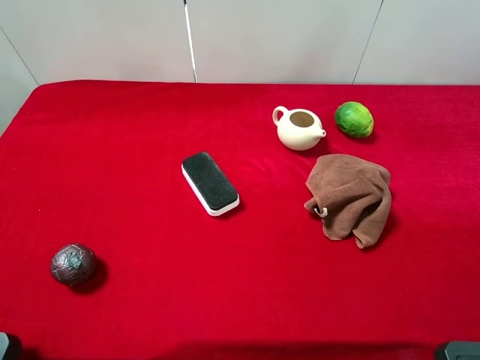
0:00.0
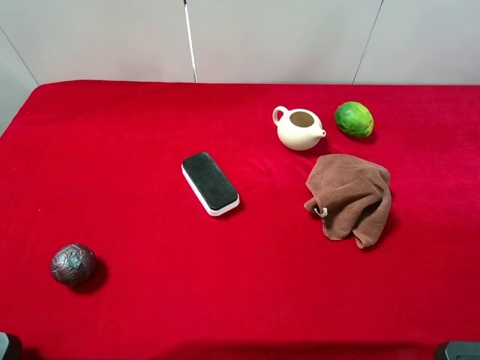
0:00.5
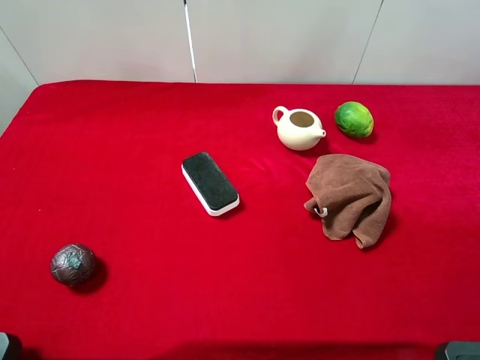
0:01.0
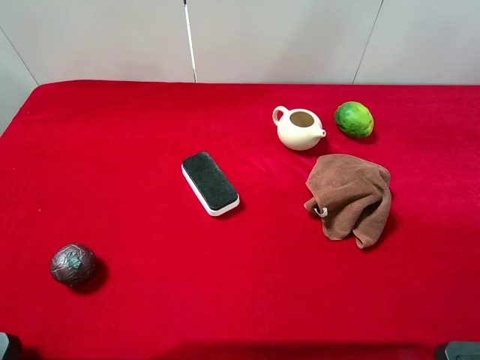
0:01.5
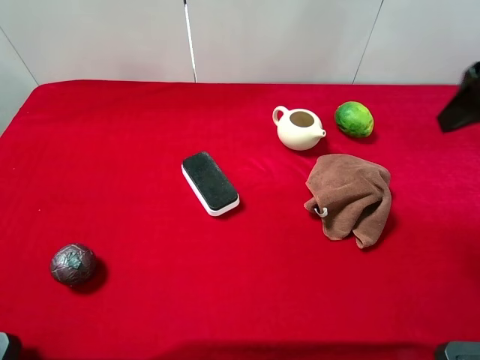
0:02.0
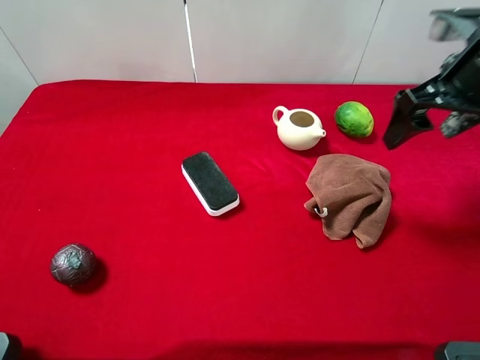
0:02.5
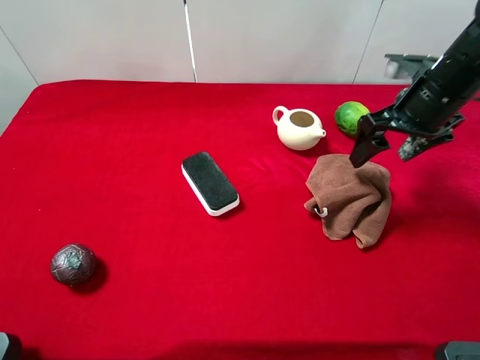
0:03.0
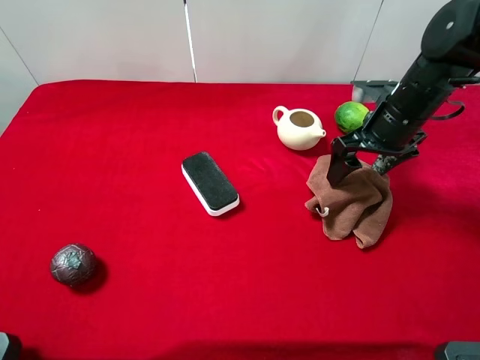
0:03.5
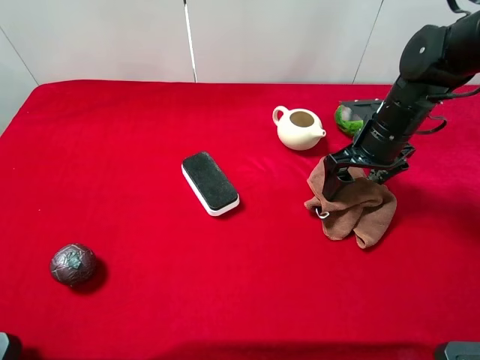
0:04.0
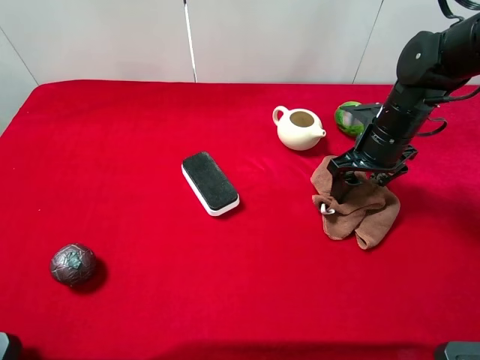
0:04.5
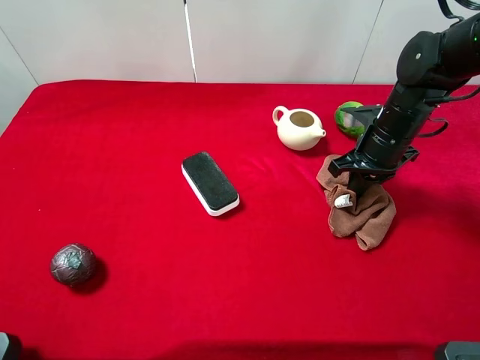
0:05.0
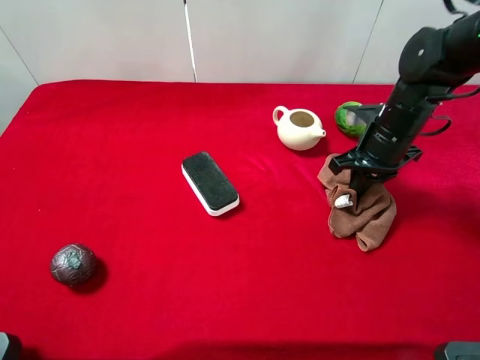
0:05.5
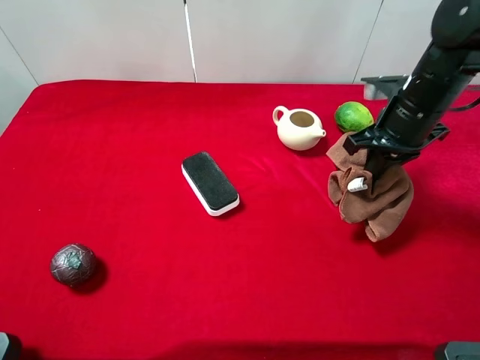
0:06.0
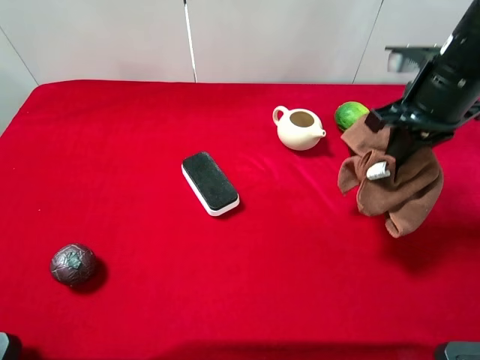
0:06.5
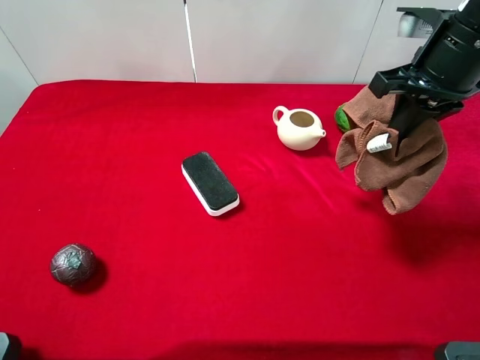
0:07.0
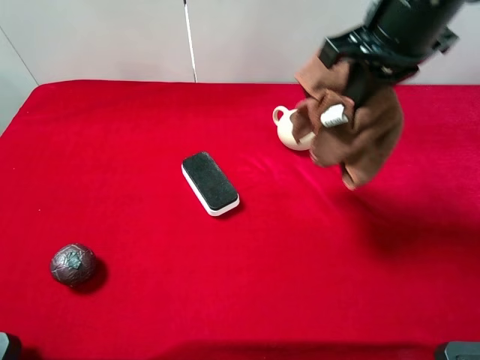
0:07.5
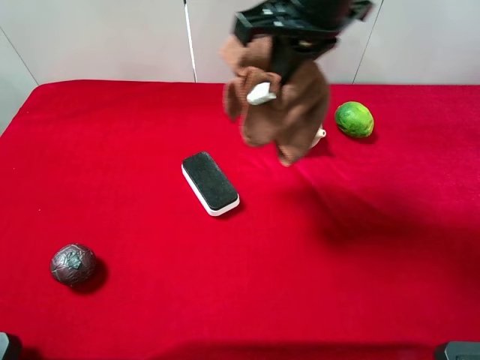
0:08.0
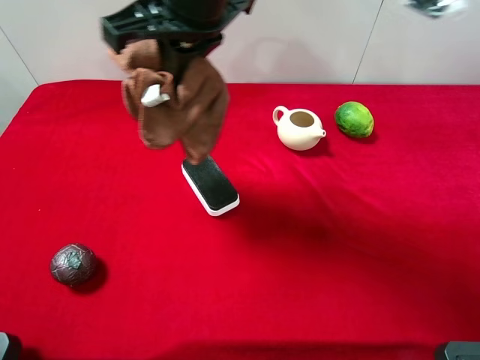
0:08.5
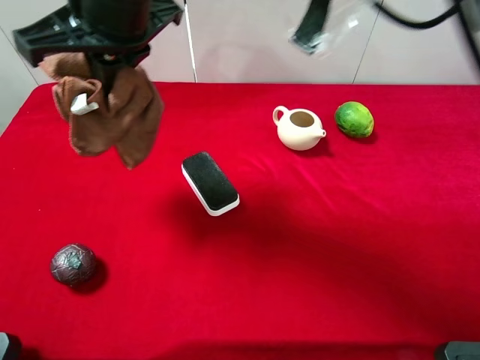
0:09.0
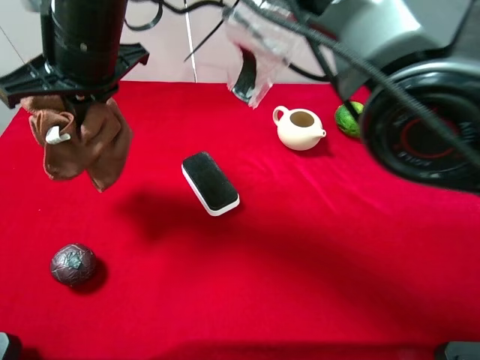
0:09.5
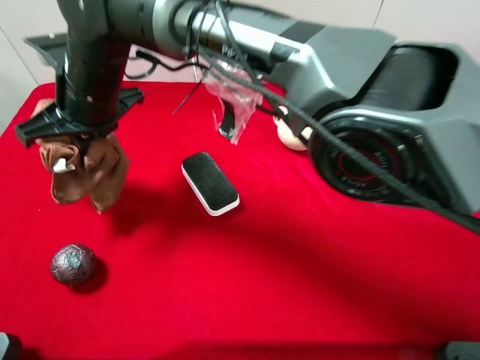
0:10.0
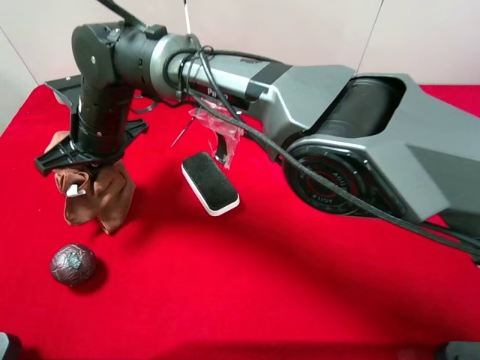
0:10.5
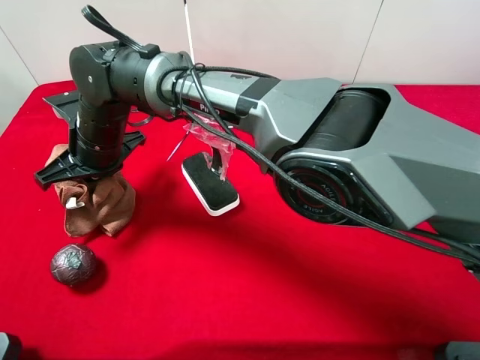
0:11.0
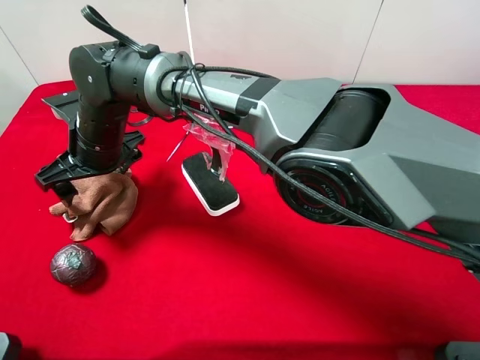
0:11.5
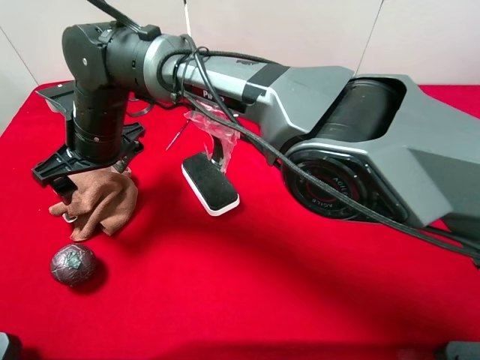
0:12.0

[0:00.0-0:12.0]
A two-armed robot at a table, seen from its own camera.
Task of the whole recording: the gripper move the object.
Step, 0:00.0 to 0:05.0: Grasp the brown towel with the right gripper.
0:00.0 to 0:02.0: The right gripper goes roughly 20 cm forward.
0:02.0 to 0:04.0: The right gripper heads downward and forward, covering some 20 cm.
0:04.0 to 0:06.0: The right gripper goes about 5 cm upward, and closes its fingers.
0:06.0 to 0:08.0: The right gripper is displaced to the left and upward by some 20 cm.
0:08.0 to 0:10.0: The right gripper goes roughly 25 cm to the left and downward.
0:10.0 to 0:12.0: The right gripper goes approximately 5 cm downward, and opens up.

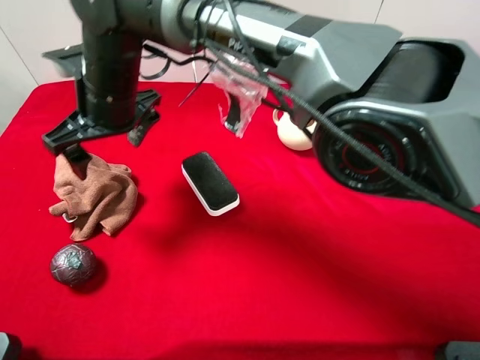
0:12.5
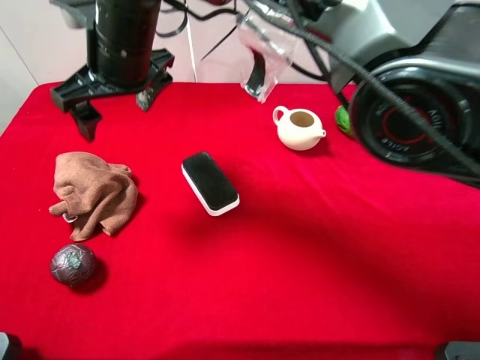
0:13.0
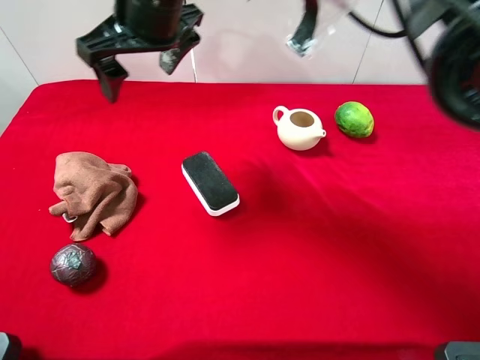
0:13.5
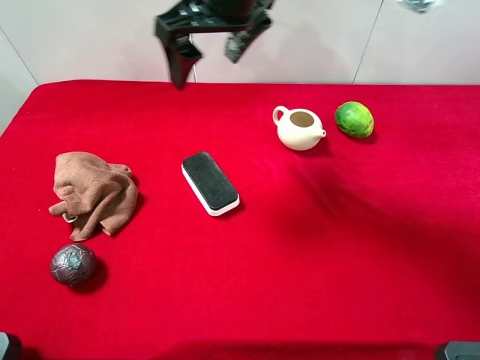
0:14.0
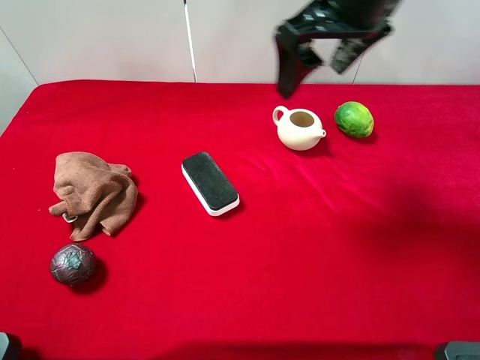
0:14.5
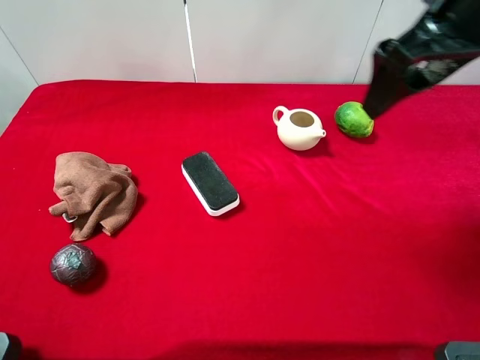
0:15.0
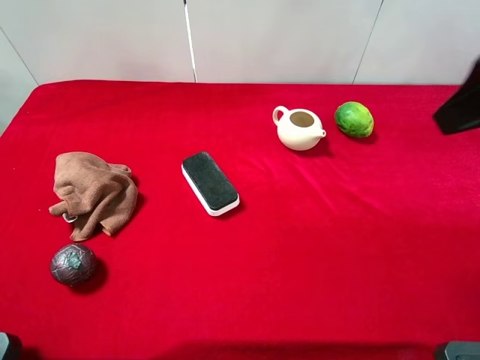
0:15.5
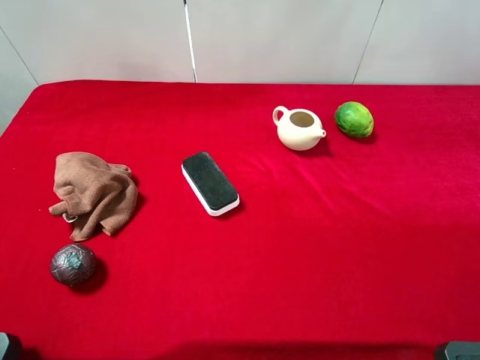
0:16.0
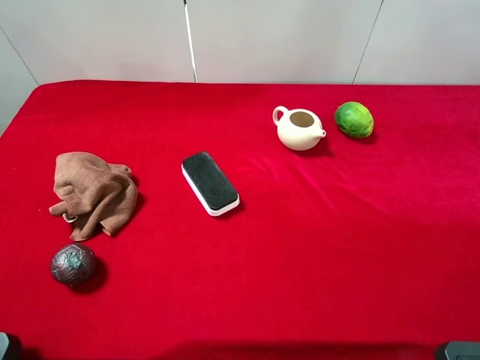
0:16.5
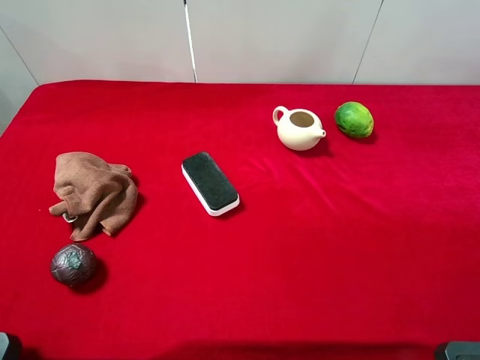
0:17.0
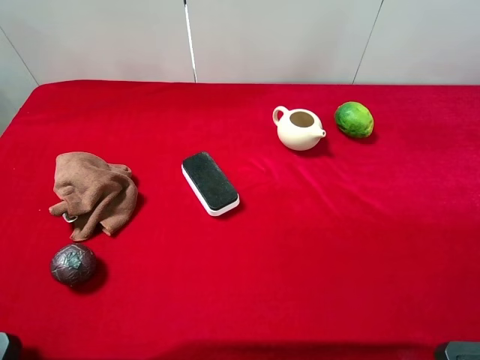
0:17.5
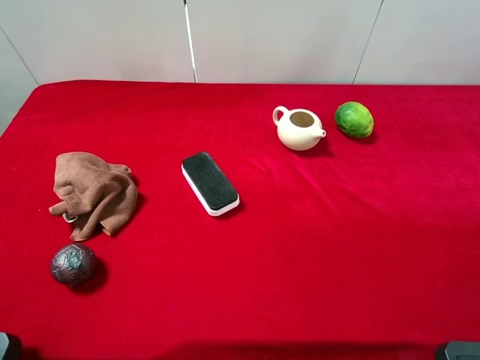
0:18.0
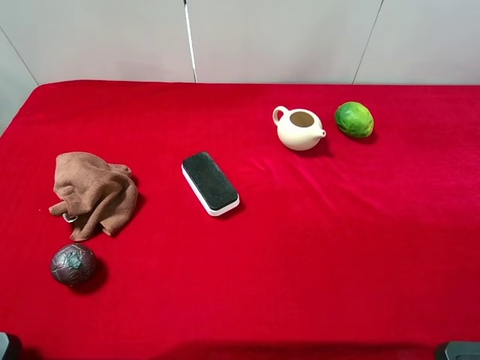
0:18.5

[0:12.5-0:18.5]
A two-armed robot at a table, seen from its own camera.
Task of the whole recording: the gripper move the object.
0:12.5 to 0:14.5: The right gripper goes about 30 cm to the right and upward.
0:14.5 to 0:16.5: The right gripper travels backward and to the right by roughly 30 cm.

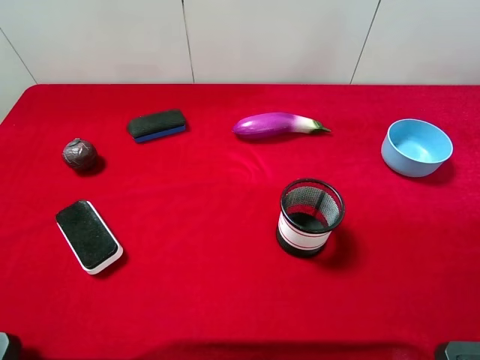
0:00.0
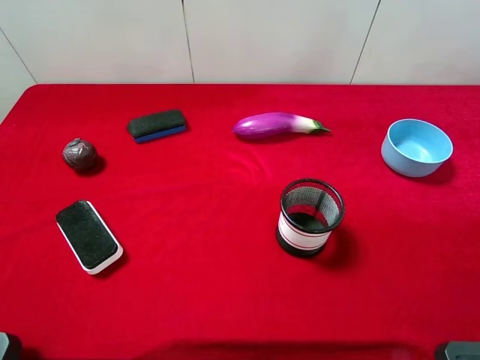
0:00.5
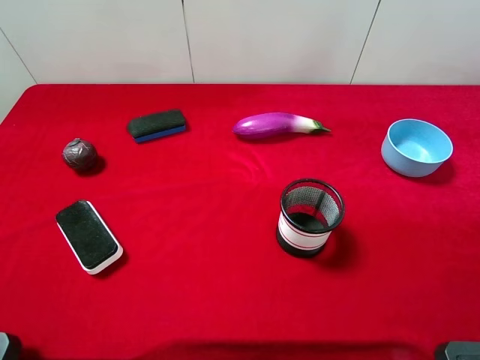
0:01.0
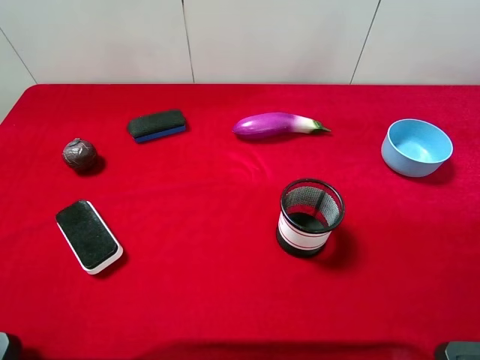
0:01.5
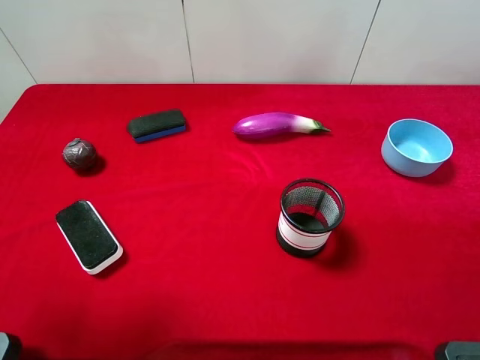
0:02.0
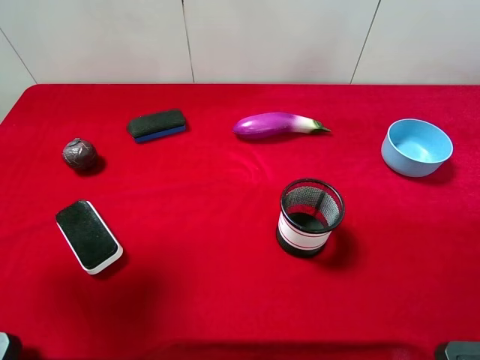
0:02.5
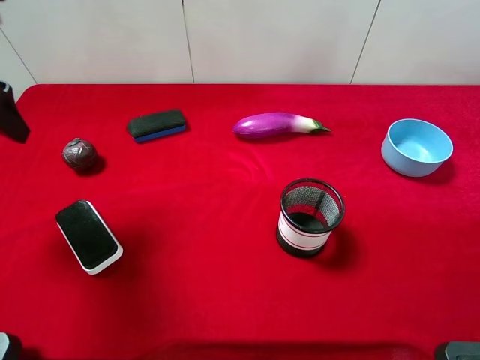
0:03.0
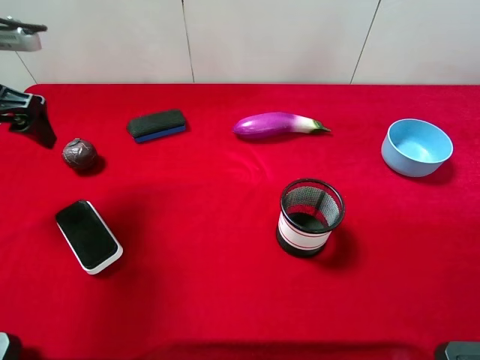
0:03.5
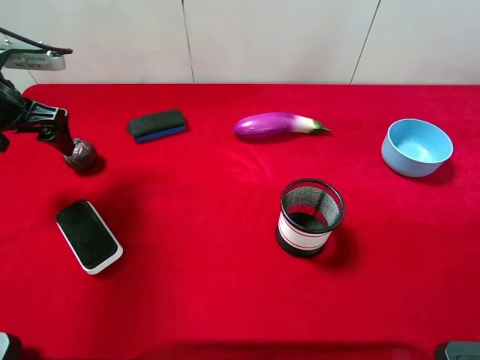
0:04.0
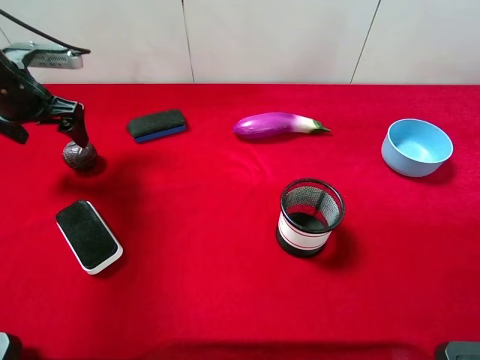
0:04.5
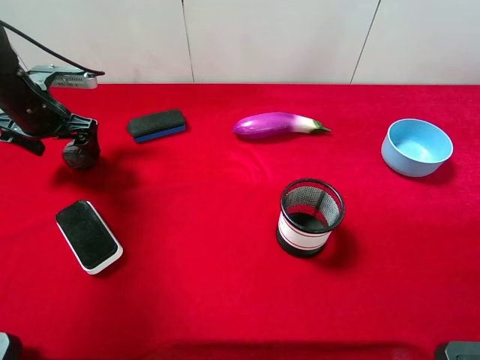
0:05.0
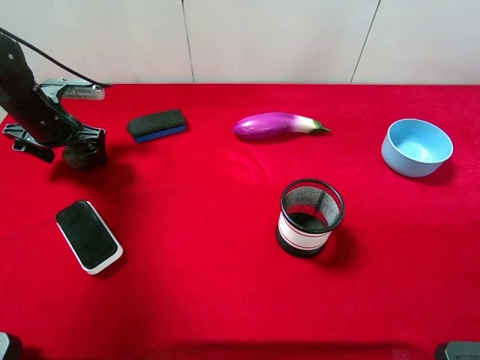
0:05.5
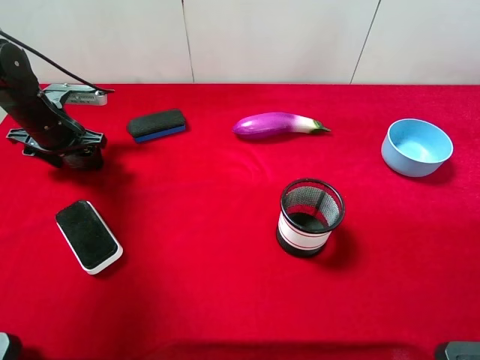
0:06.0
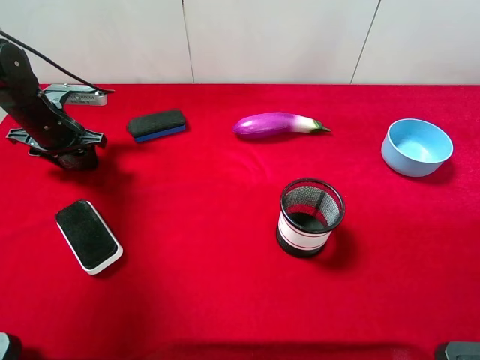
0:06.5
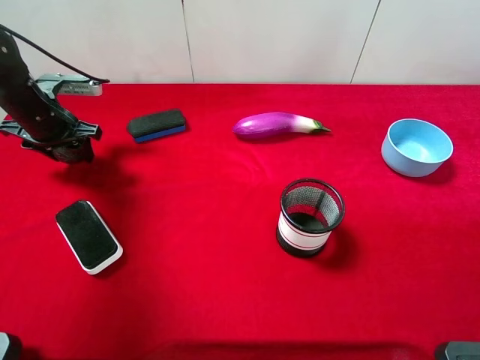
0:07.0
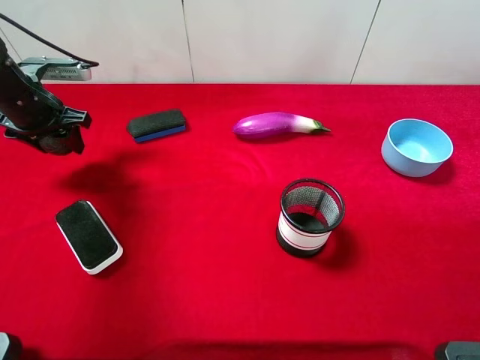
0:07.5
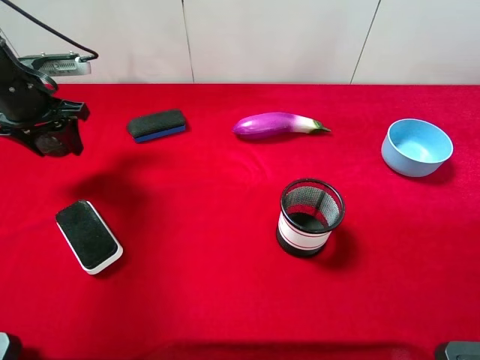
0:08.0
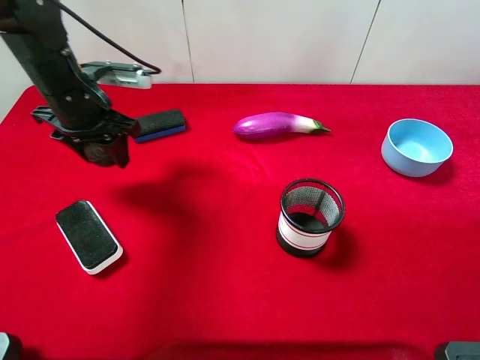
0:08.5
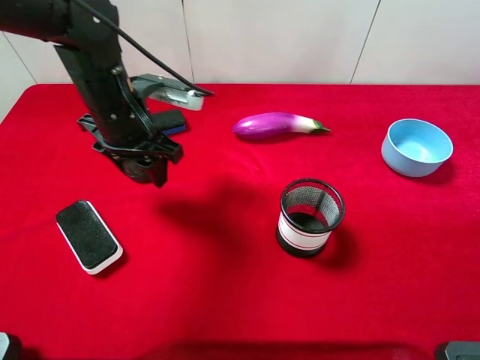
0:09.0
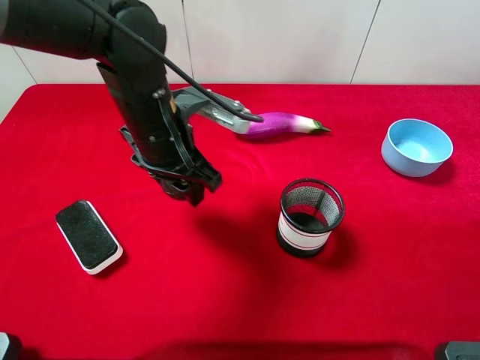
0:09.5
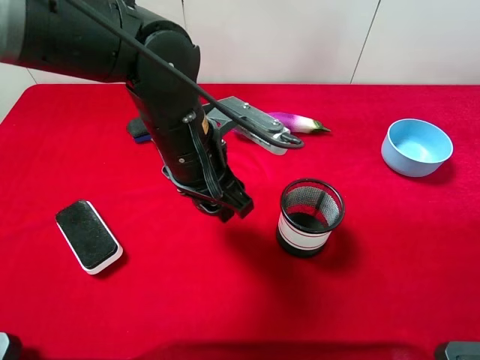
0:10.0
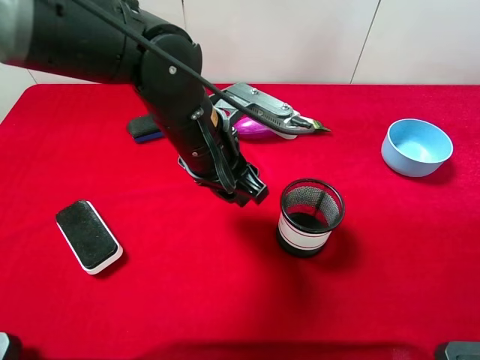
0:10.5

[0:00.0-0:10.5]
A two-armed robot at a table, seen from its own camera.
Task of the whole recording: the gripper move the object.
Step, 0:00.0 to 0:06.0: Grasp the mangosteen with the left gripper.
0:02.0 to 0:04.0: The left gripper is displaced forward and downward by roughly 25 cm.
0:04.0 to 0:06.5: The left gripper moves downward and forward, roughly 10 cm, and closes its fingers.
0:06.5 to 0:08.5: The left gripper travels to the right and upward by about 10 cm.
0:08.5 to 0:10.5: The left gripper moves to the right and backward, some 20 cm.
